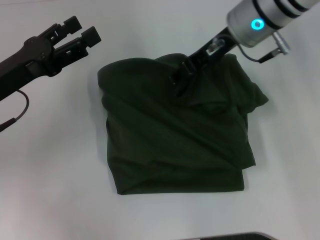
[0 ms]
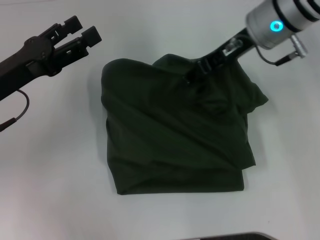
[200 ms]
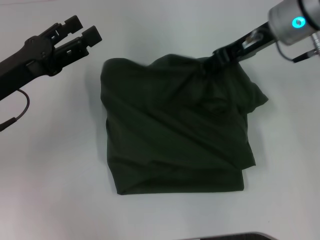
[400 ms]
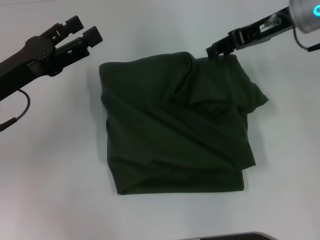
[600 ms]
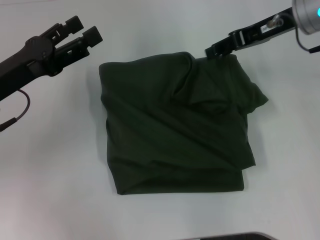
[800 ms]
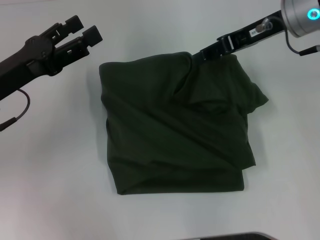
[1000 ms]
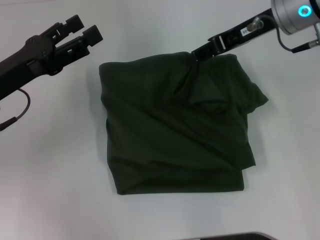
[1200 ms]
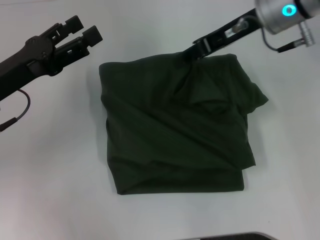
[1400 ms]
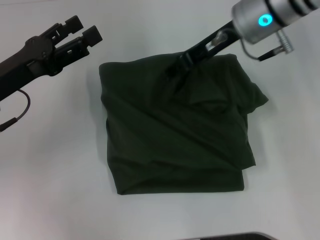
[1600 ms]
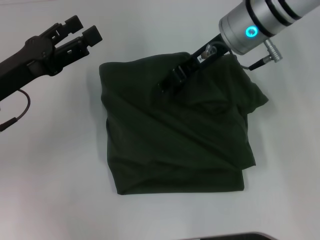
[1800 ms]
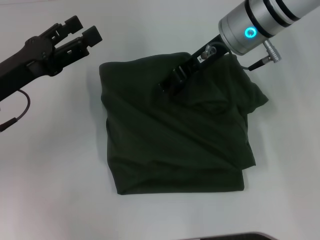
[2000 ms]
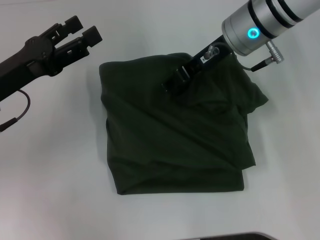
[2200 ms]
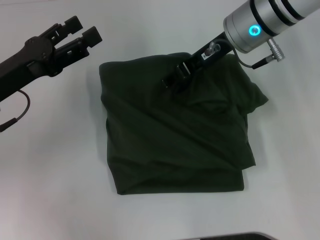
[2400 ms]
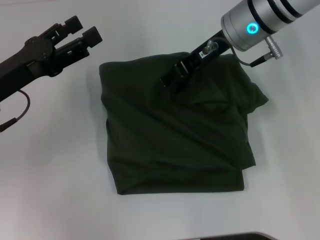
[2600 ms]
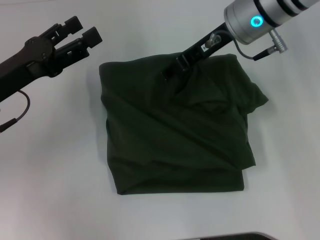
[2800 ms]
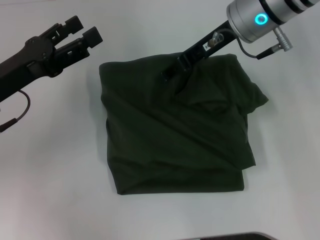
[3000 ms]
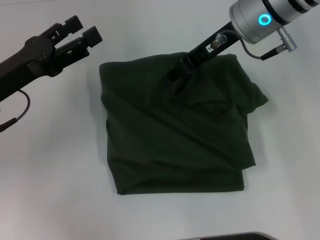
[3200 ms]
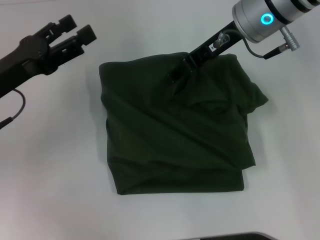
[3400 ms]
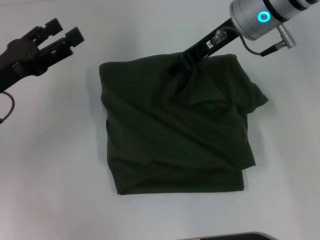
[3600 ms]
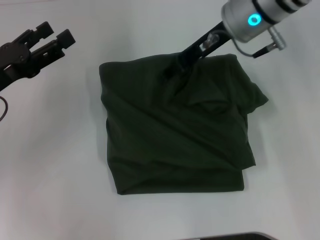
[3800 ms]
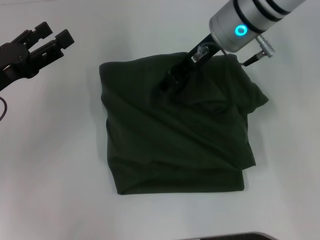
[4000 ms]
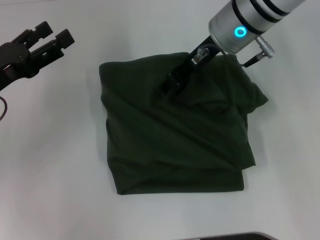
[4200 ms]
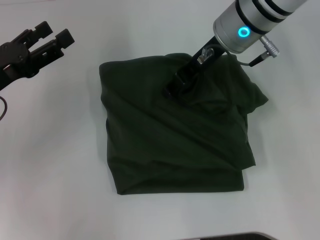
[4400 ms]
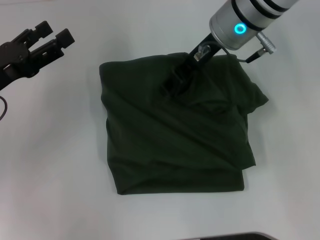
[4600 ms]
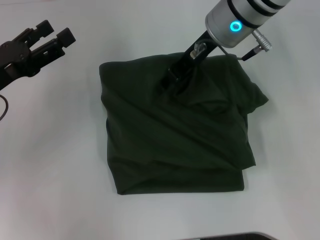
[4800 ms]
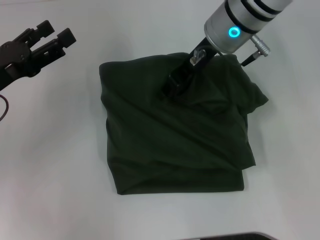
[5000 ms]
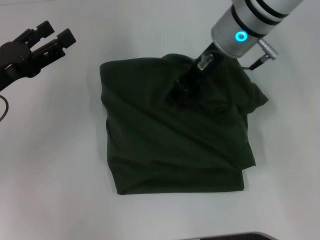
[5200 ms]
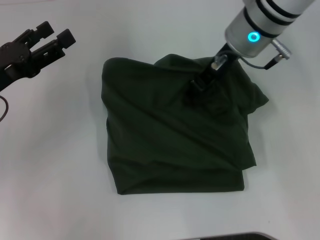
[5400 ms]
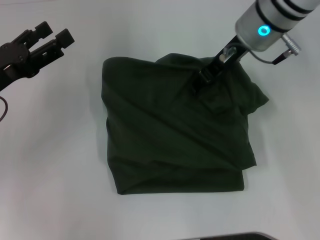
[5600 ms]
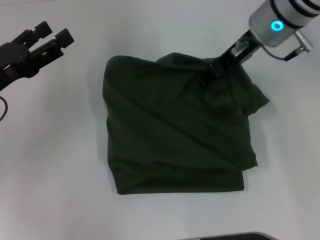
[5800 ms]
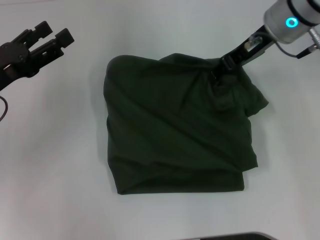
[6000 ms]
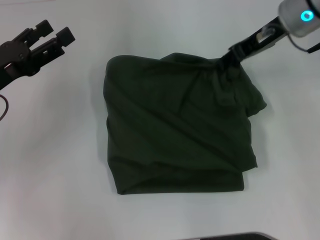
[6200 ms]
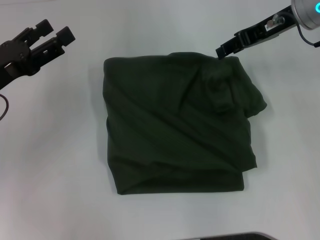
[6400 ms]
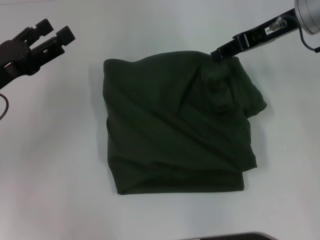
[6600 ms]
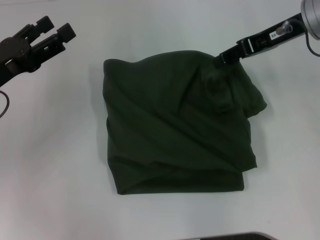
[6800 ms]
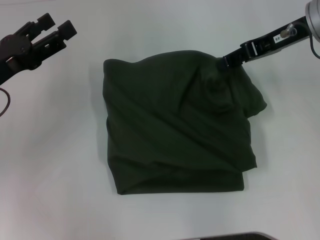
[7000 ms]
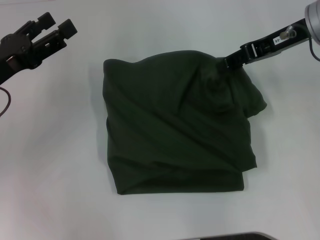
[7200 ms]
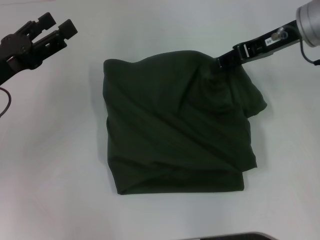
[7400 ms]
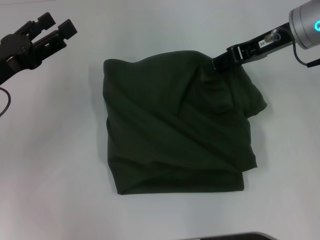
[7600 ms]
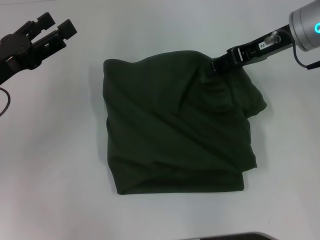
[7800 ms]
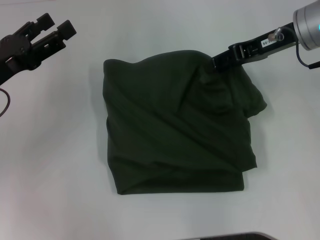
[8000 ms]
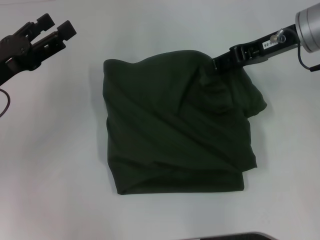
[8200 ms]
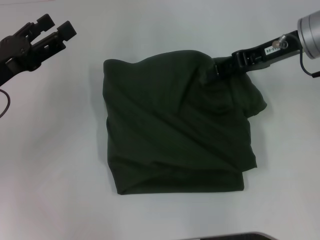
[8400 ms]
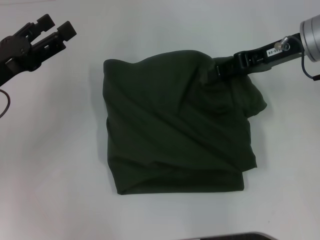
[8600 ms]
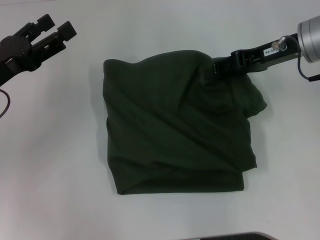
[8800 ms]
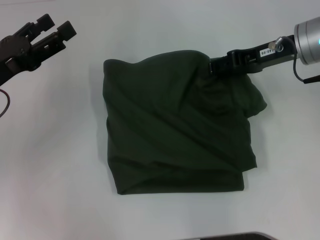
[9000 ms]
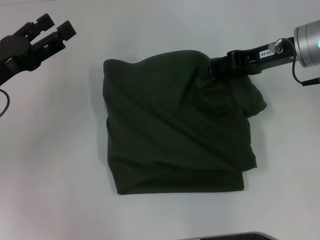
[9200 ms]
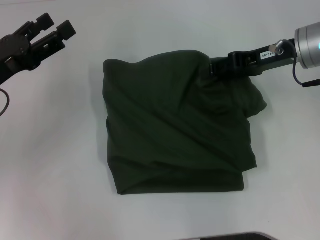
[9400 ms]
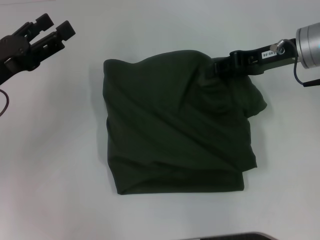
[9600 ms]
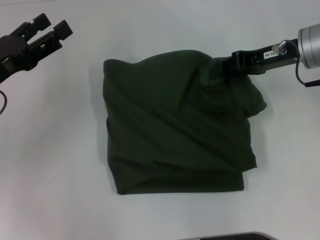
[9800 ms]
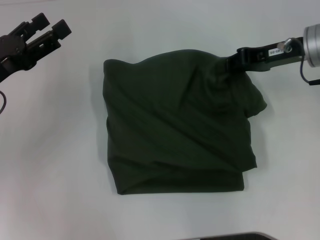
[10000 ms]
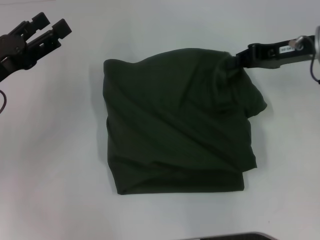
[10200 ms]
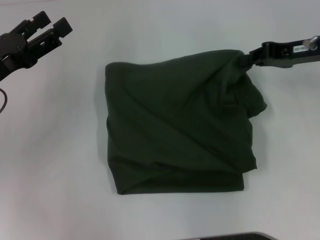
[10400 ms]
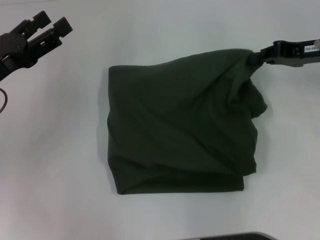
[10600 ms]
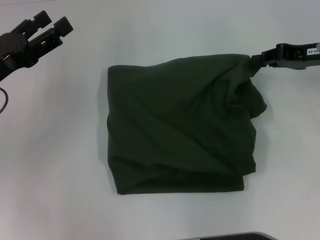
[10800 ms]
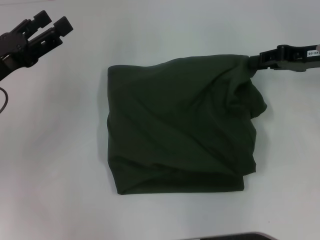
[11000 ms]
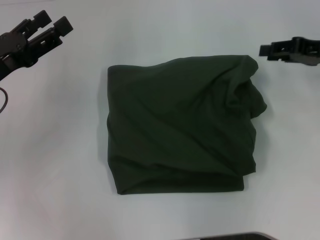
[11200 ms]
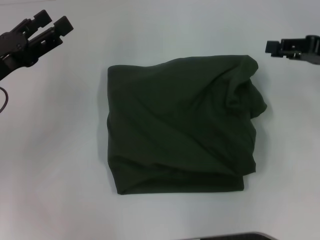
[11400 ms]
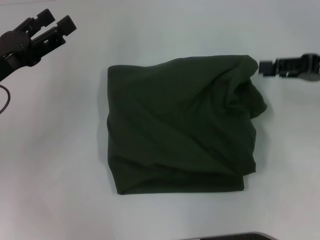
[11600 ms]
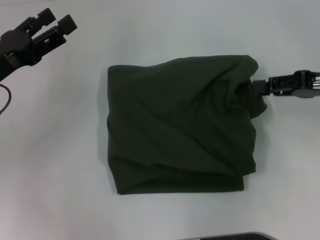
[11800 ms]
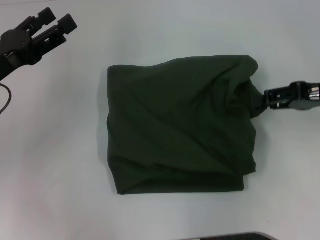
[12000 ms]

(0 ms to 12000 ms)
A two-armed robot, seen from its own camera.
0 ms - 1600 ms: The right gripper reaches about 10 cm to the right, then returns.
1600 ms - 4400 ms: The grippers move only a little.
4400 ms - 6000 ms: The right gripper goes roughly 5 cm to the right.
6000 ms - 7600 ms: The grippers move only a little.
7600 ms - 9000 ms: The grippers move only a little.
9000 ms - 10400 ms: The right gripper is displaced to the right by roughly 5 cm, and closes up.
10400 ms - 12000 ms: The right gripper goes approximately 5 cm backward, and opens up.

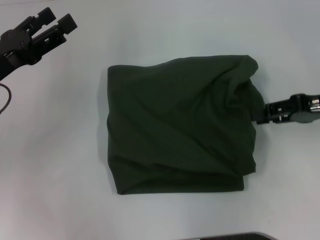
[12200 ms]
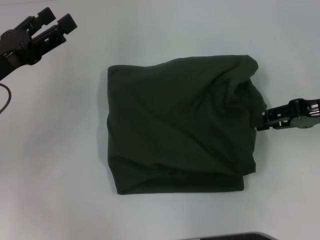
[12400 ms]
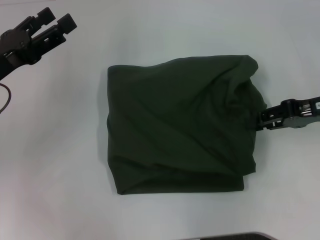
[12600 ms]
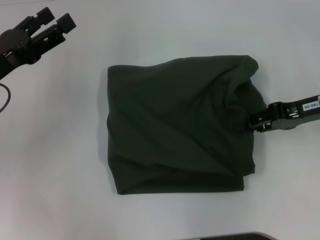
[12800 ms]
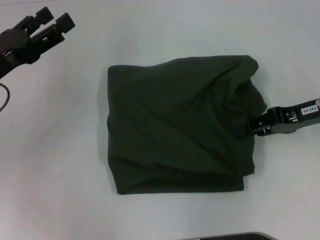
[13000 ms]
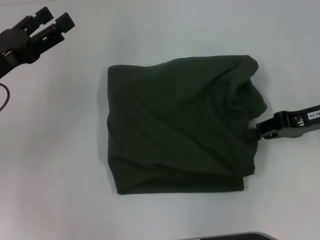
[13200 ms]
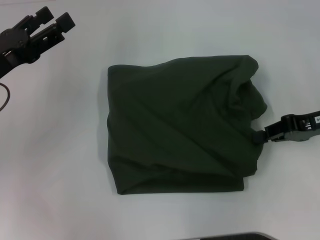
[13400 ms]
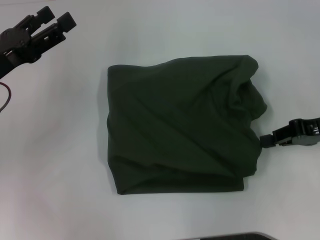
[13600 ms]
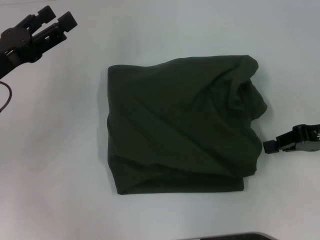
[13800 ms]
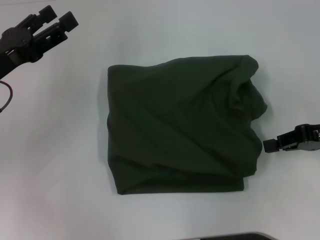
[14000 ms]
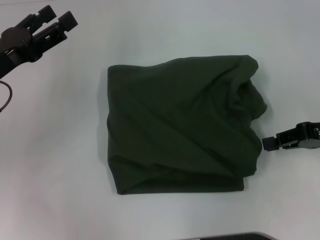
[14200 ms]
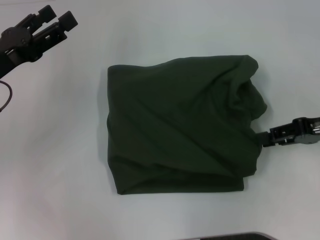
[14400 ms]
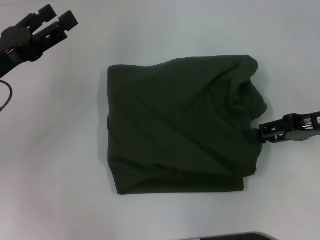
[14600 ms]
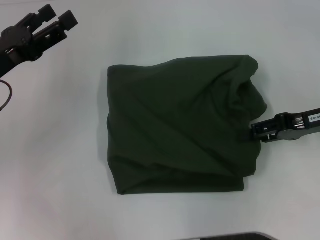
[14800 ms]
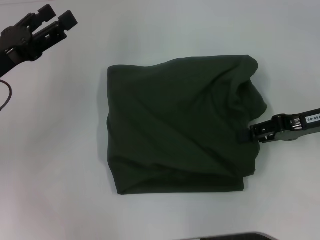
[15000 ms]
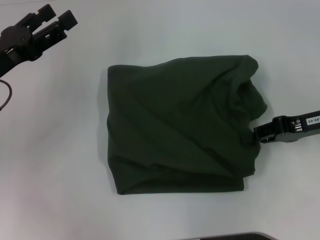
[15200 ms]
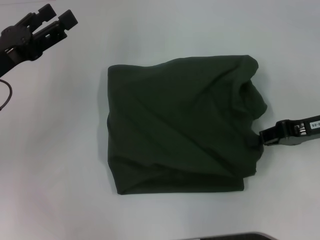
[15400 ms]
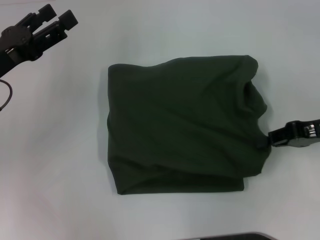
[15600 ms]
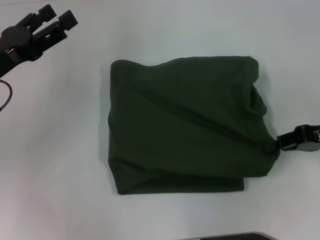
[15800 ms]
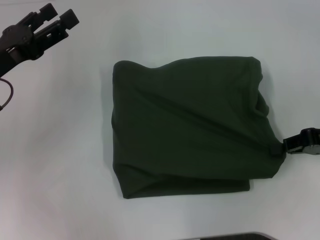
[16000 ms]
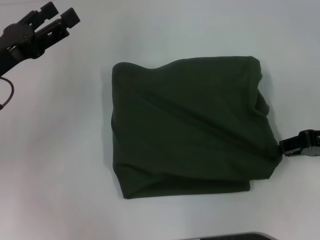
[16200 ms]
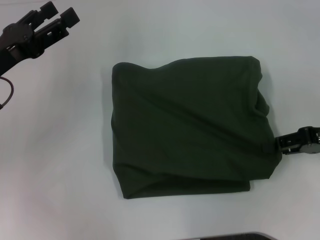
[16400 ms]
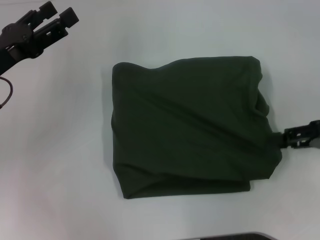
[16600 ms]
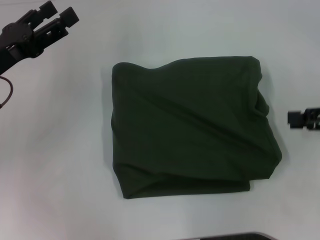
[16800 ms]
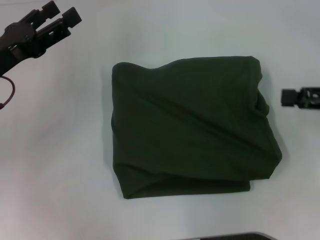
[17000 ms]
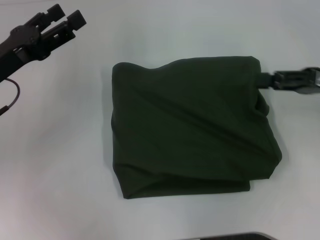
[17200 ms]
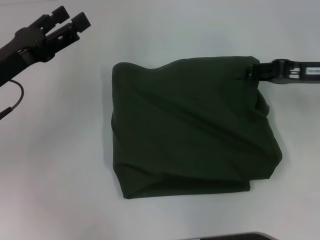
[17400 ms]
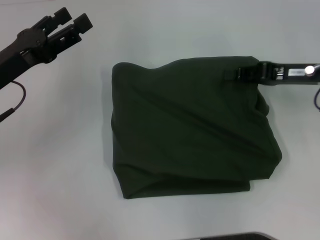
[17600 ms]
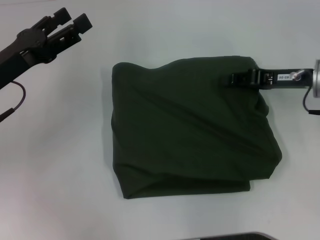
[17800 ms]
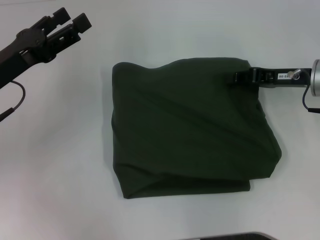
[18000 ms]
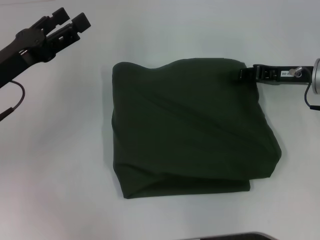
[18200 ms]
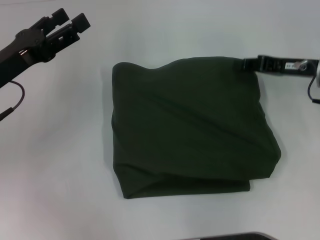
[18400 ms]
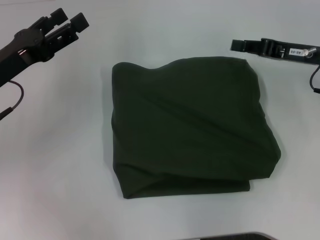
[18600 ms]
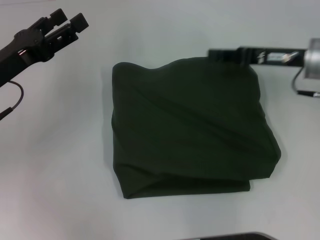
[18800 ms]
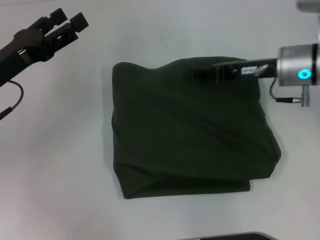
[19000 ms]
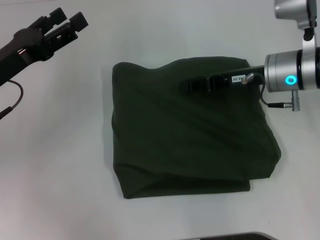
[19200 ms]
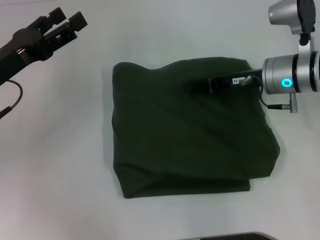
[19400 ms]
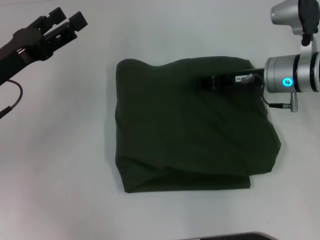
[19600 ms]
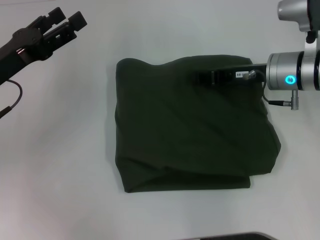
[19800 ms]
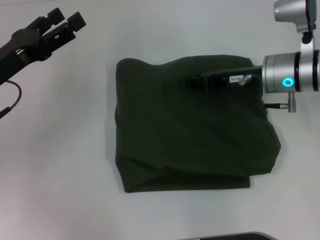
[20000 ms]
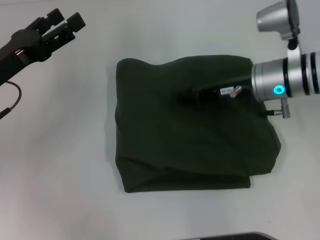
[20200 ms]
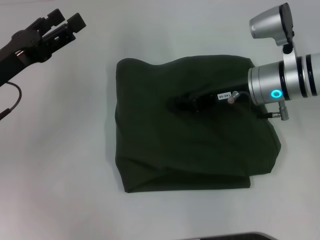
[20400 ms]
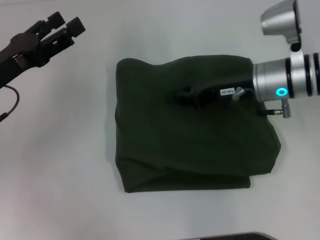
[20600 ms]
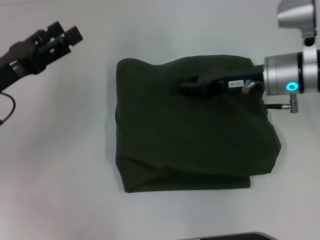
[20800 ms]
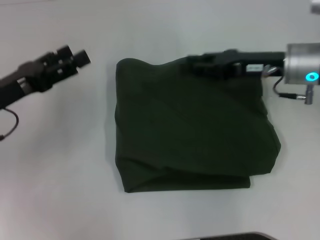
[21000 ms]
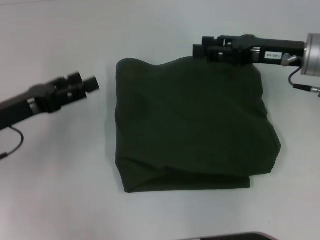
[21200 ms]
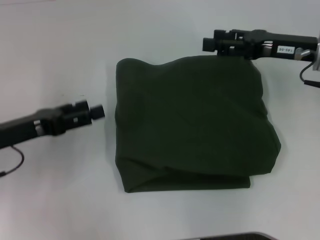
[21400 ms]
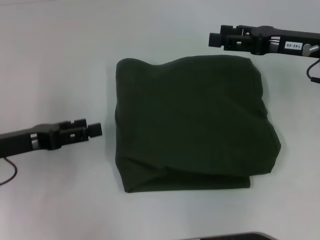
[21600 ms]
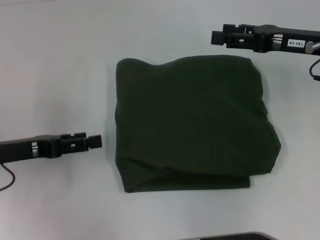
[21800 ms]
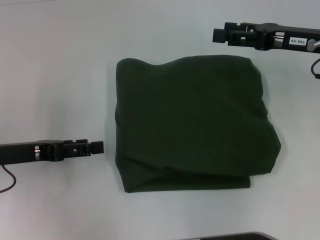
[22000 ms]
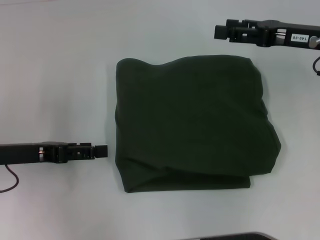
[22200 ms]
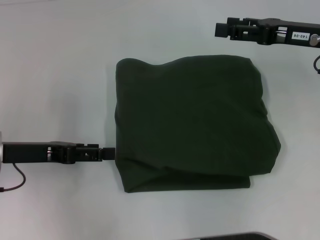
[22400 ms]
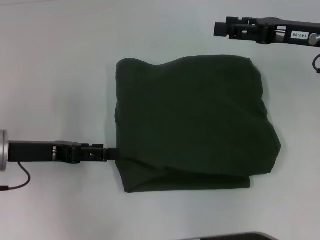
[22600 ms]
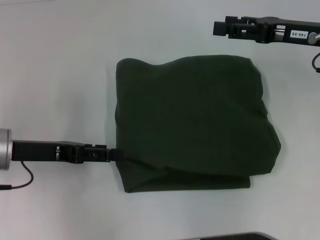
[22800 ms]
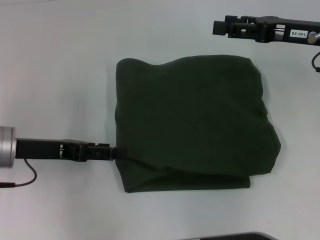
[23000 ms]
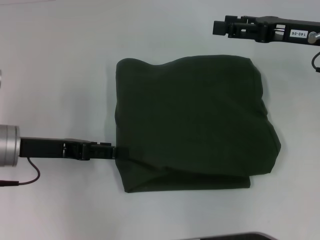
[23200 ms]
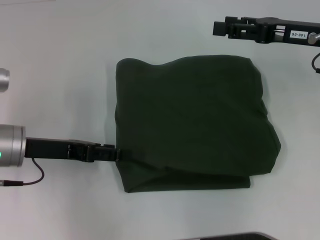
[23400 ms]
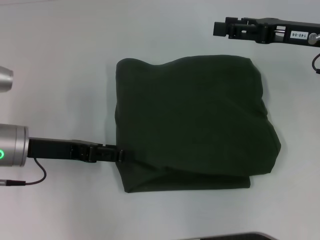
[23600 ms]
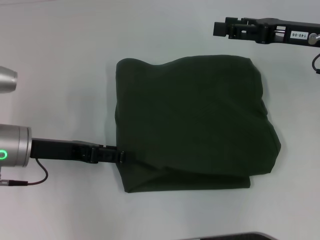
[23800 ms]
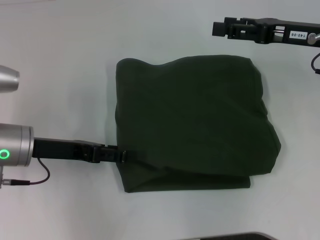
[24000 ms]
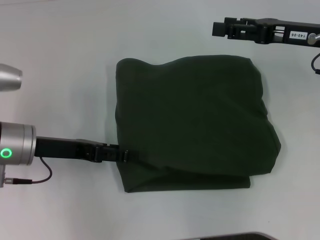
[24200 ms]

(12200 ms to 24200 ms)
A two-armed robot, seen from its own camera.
12200 ms - 13800 ms: The right gripper closes its fingers.
13800 ms - 15200 ms: The grippers make only small movements.
15200 ms - 16600 ms: The right gripper ends up approximately 5 cm from where it was, and closes, then opens again.
16600 ms - 18200 ms: The right gripper heads forward and to the left, covering approximately 10 cm.
18200 ms - 19800 ms: The right gripper travels to the left by approximately 5 cm.
19800 ms - 21200 ms: The right gripper moves about 5 cm, and opens.
21200 ms - 22600 ms: The right gripper opens its fingers.
22600 ms - 24200 ms: There are only small adjustments of the grippers.
